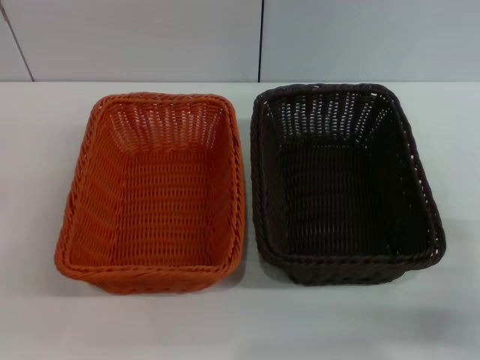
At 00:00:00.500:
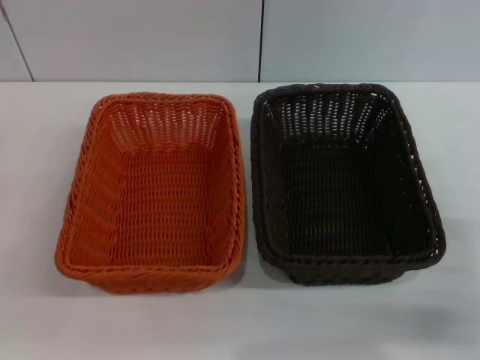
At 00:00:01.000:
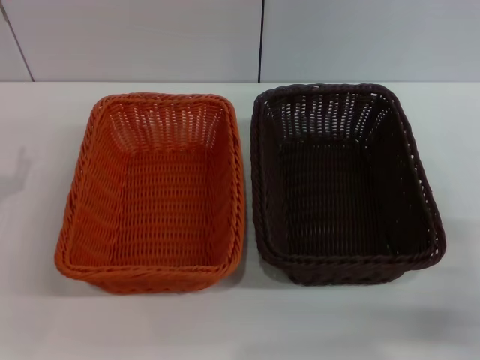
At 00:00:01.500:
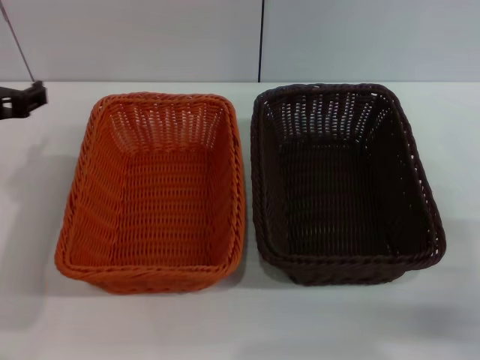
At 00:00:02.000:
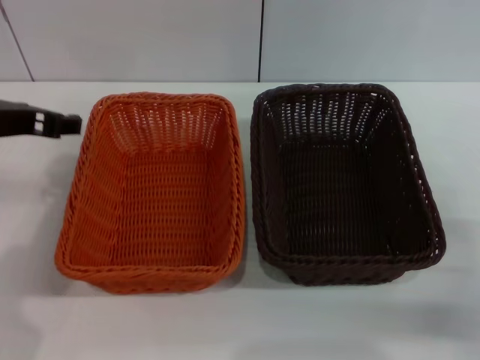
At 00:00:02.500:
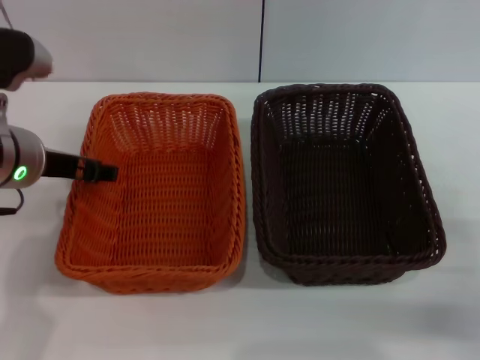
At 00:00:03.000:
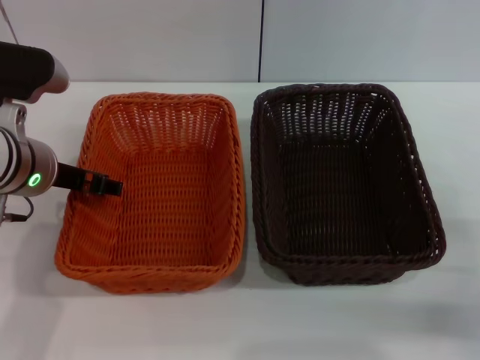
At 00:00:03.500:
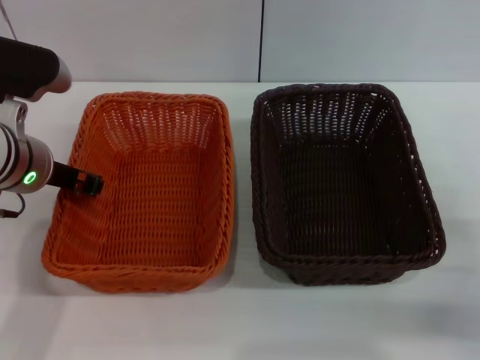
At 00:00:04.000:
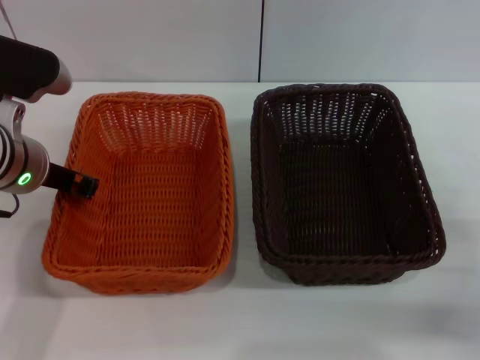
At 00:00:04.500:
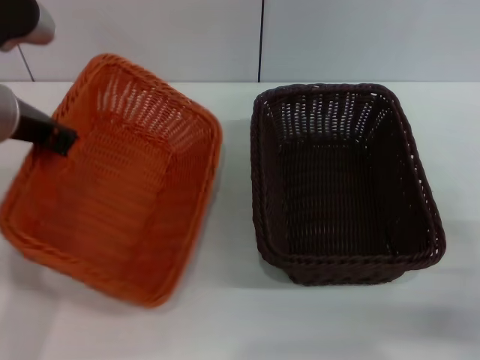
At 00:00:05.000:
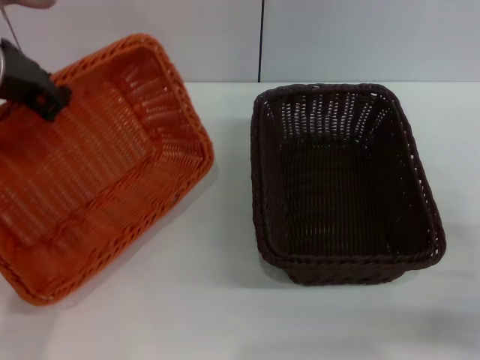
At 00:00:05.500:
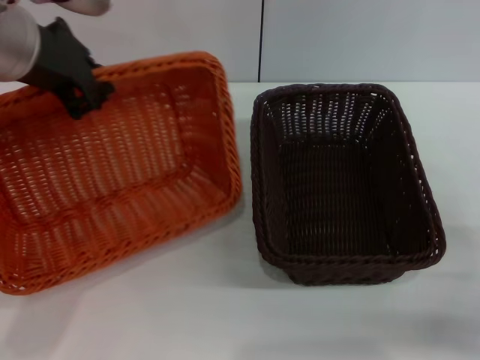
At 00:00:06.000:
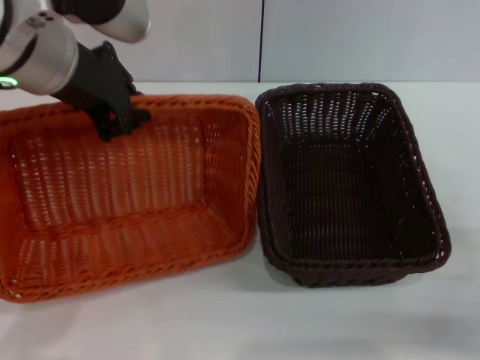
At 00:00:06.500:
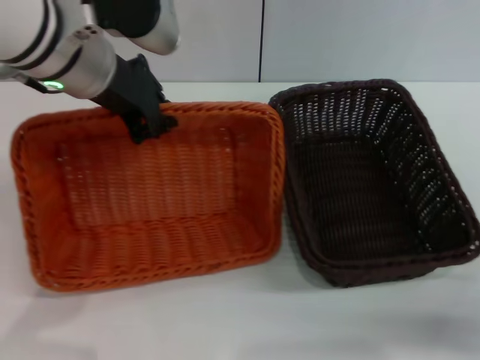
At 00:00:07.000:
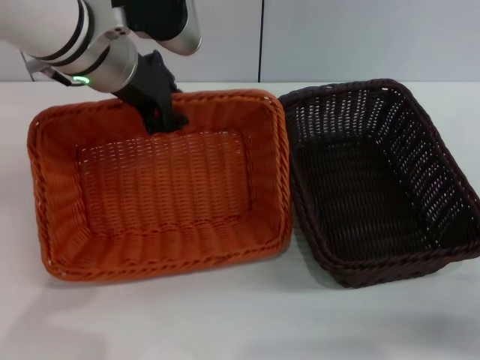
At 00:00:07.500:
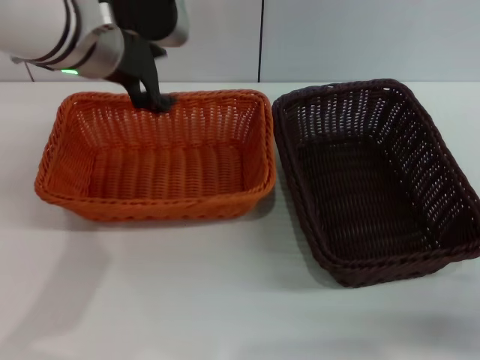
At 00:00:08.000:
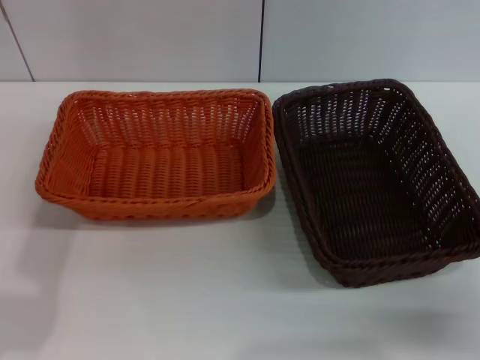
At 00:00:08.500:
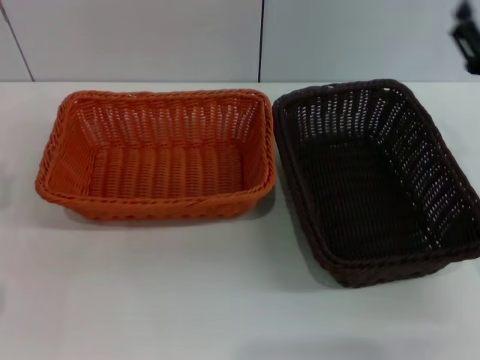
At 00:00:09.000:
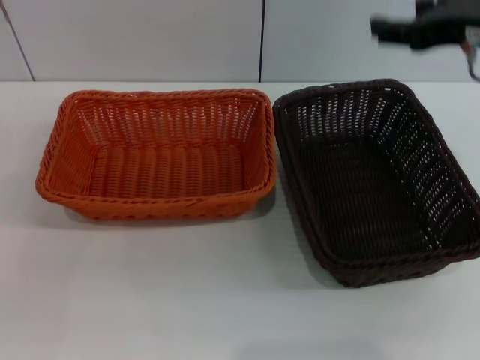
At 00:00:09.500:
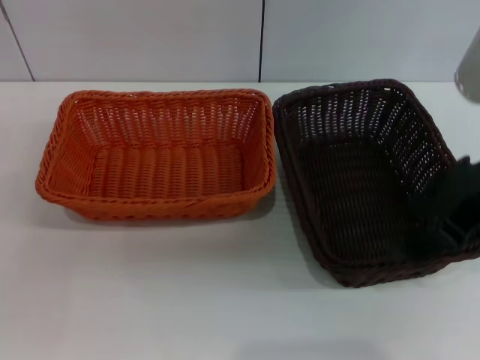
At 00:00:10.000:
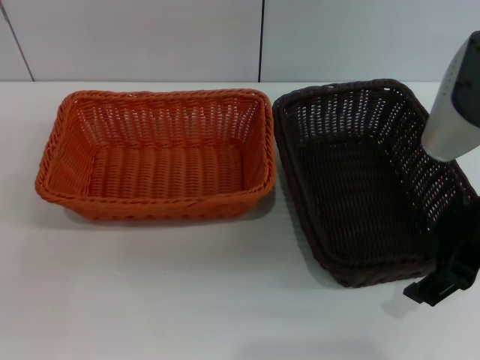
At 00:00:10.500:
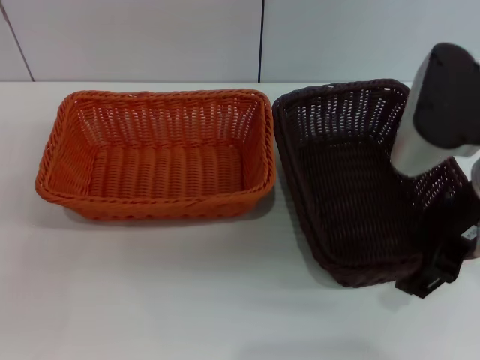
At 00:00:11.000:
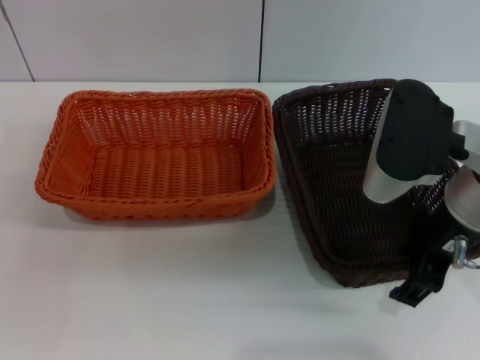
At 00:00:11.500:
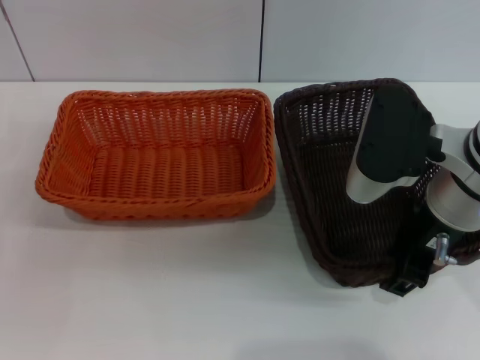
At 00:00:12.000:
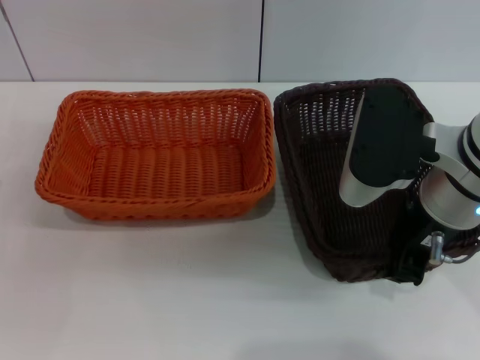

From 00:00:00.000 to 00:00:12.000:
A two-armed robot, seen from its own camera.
Step, from 00:00:00.000 to 00:00:04.500: Pick up the light basket with the left gripper.
Step, from 00:00:05.000 to 00:00:07.000: Place the light basket in the center of view with the left gripper.
From 00:00:00.000 to 00:00:02.000: The left gripper shifts about 25 cm upward, to the right and forward.
From 00:00:02.000 to 00:00:04.000: The left gripper shifts about 5 cm downward, and closes.
From 00:00:04.000 to 00:00:06.000: The left gripper moves upward and to the right, approximately 15 cm.
From 00:00:06.000 to 00:00:08.000: The left gripper goes approximately 5 cm to the left, and opens its fingers.
From 00:00:08.000 to 00:00:10.000: The left gripper moves downward, to the left and backward, roughly 25 cm. The right gripper travels upward and to the left by roughly 20 cm.
From 00:00:10.000 to 00:00:12.000: The right gripper changes place by roughly 5 cm, and closes.

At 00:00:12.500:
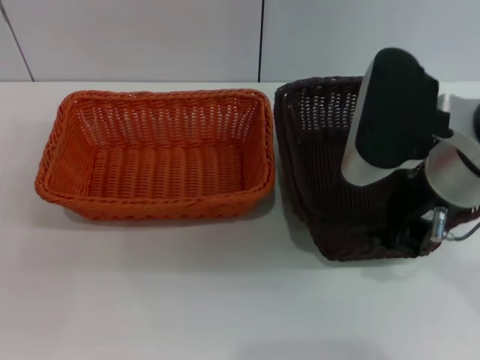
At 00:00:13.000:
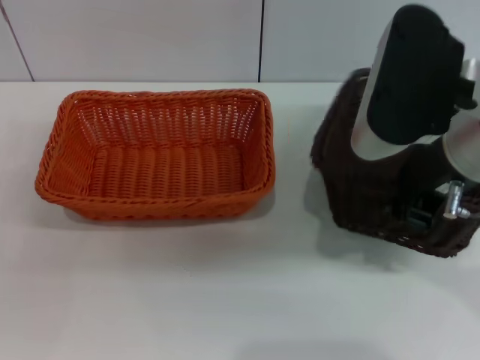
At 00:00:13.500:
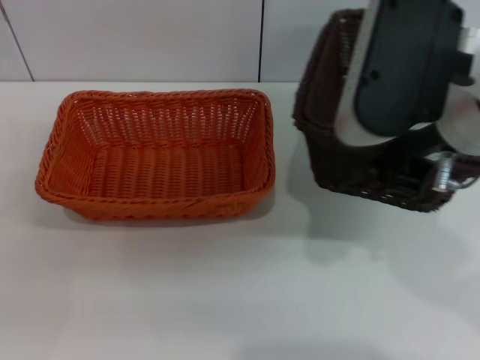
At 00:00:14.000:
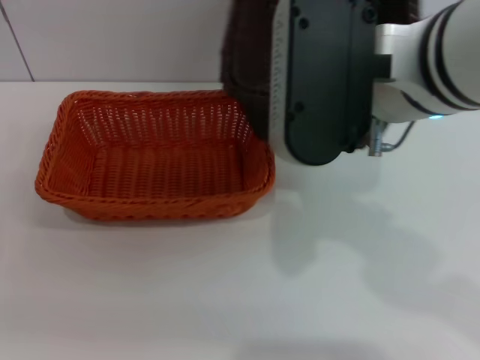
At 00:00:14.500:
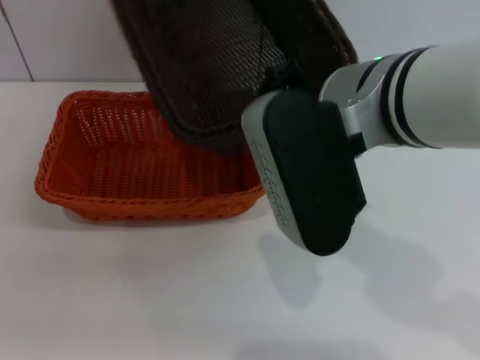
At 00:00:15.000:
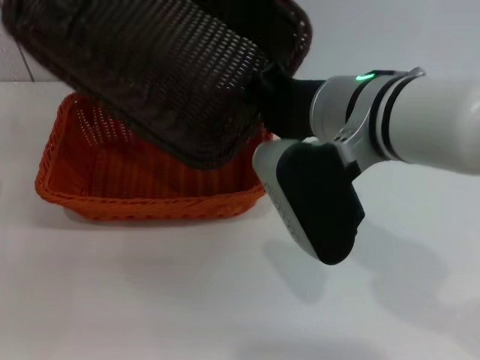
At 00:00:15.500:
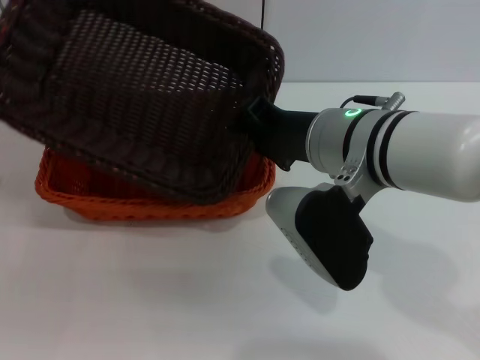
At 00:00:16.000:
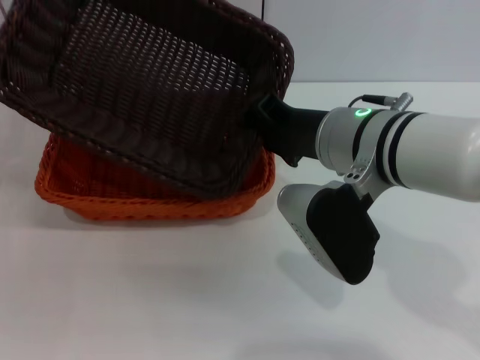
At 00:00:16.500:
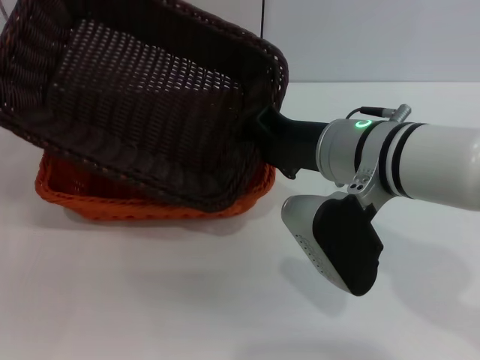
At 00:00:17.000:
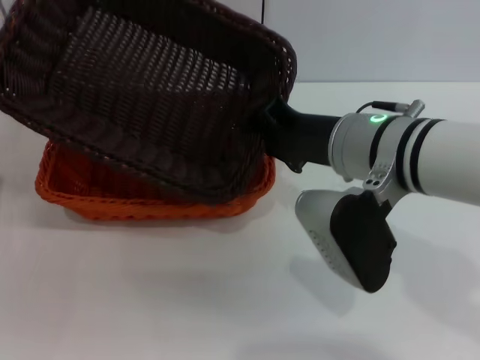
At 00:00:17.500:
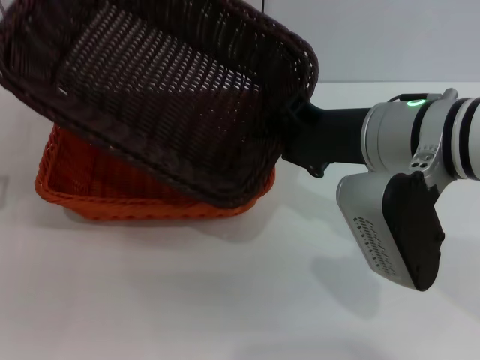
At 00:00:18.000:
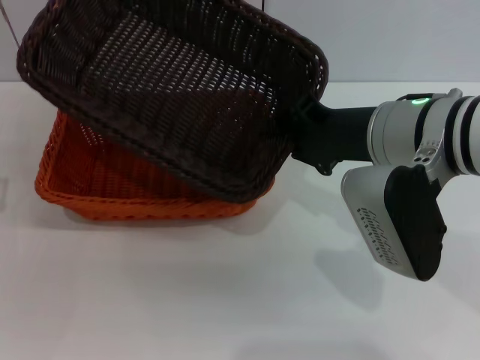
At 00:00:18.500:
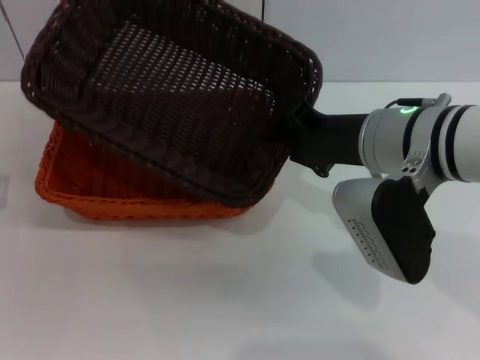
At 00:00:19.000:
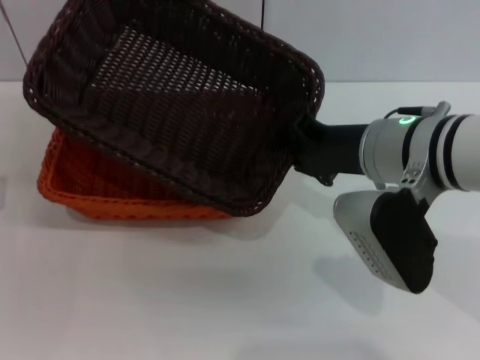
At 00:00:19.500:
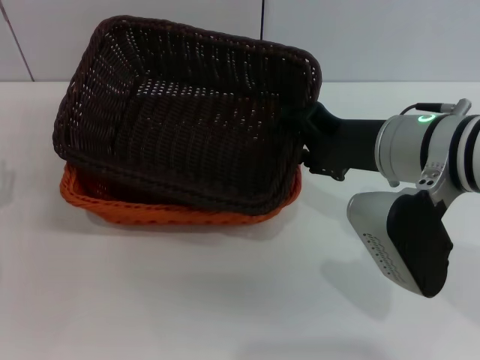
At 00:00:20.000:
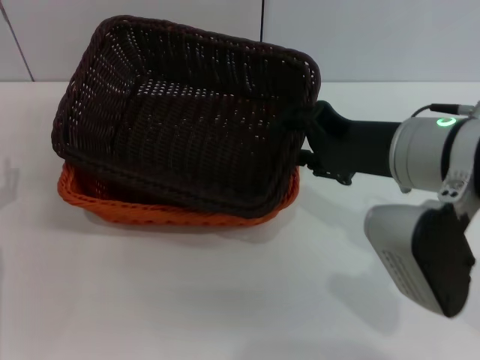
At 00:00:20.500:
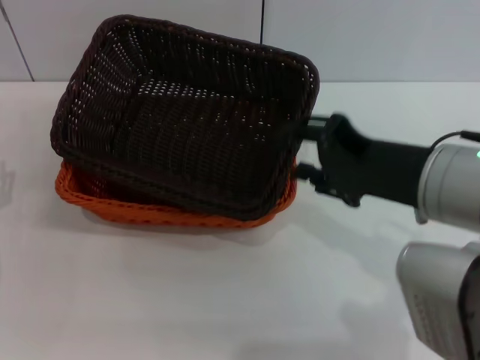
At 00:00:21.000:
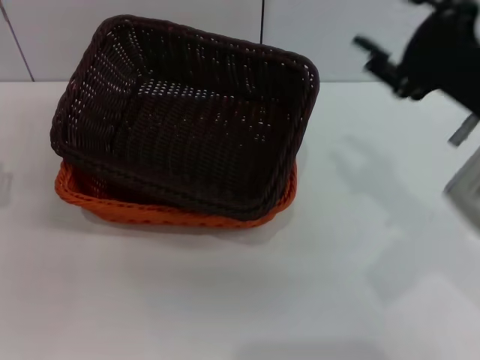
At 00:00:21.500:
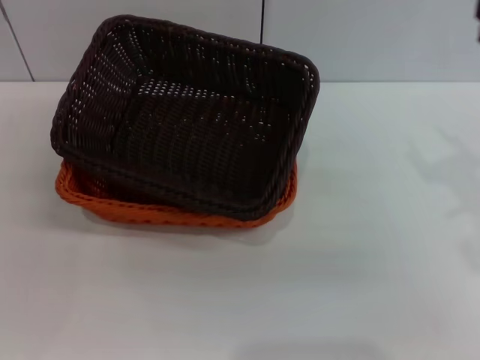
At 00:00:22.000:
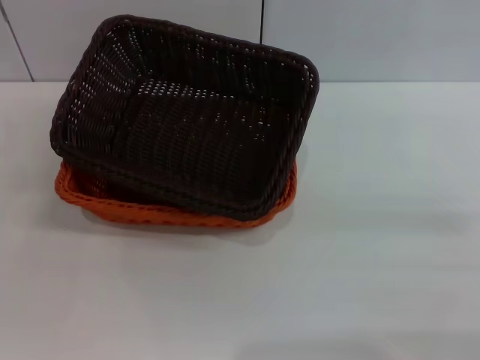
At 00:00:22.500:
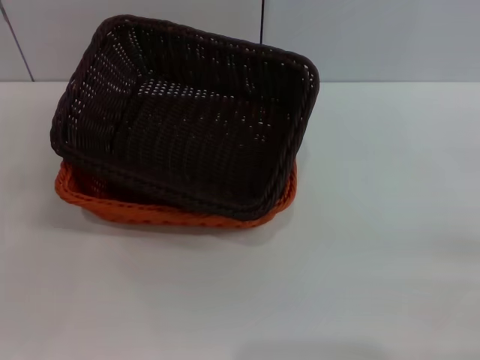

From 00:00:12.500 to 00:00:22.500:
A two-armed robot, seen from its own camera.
Step, from 00:00:13.500 to 00:00:20.500: Place the dark basket on the light basket with the right gripper.
From 00:00:12.500 to 00:00:14.500: The right gripper goes about 5 cm to the left.
From 00:00:14.500 to 00:00:16.500: The right gripper is displaced downward by roughly 10 cm.
From 00:00:18.500 to 00:00:20.500: The right gripper is displaced backward by about 10 cm, and opens up.
From 00:00:20.500 to 00:00:22.500: The right gripper moves to the right and downward, approximately 25 cm.
